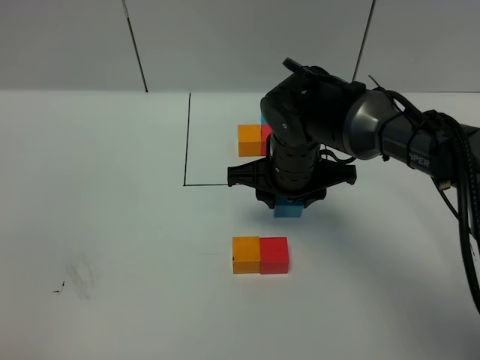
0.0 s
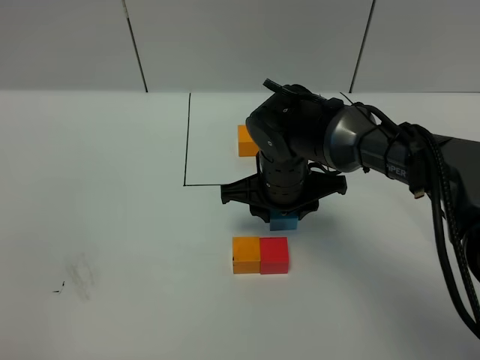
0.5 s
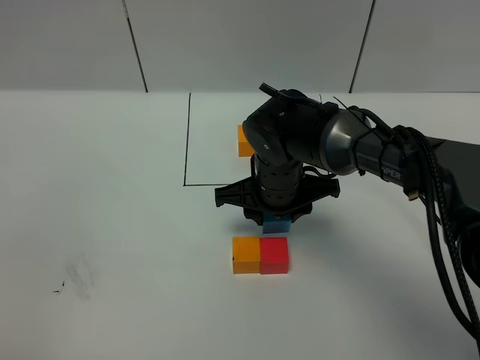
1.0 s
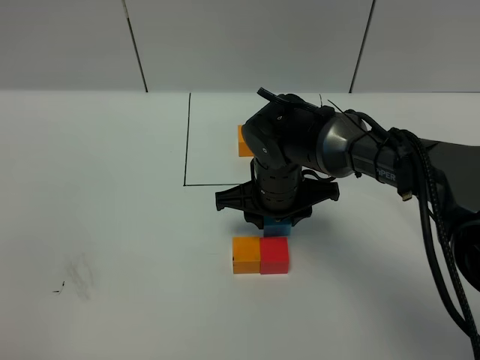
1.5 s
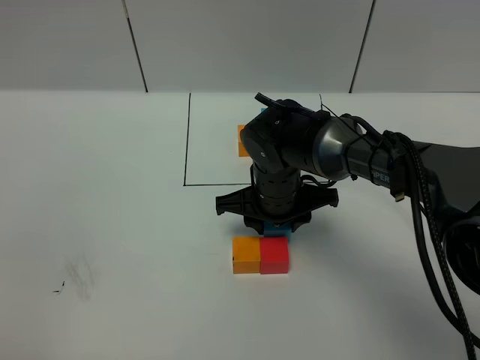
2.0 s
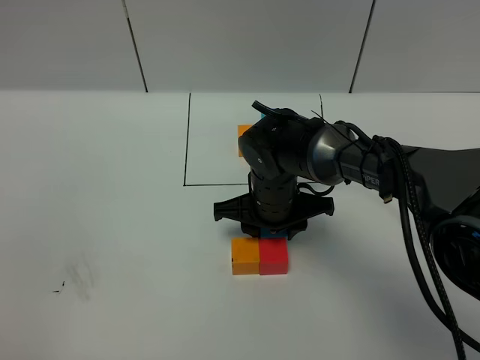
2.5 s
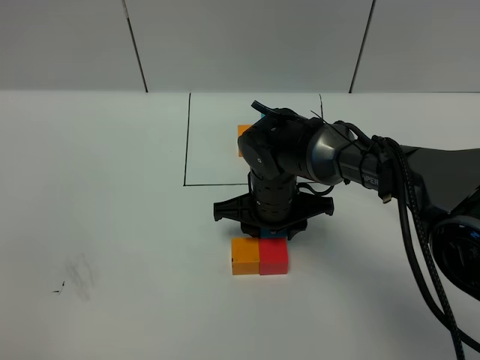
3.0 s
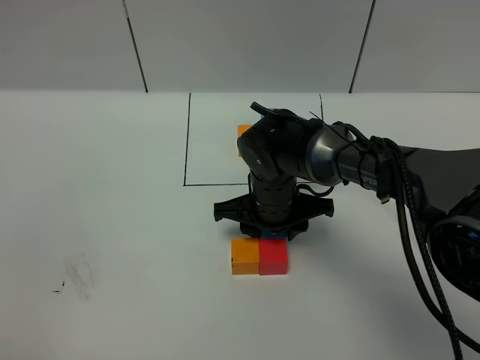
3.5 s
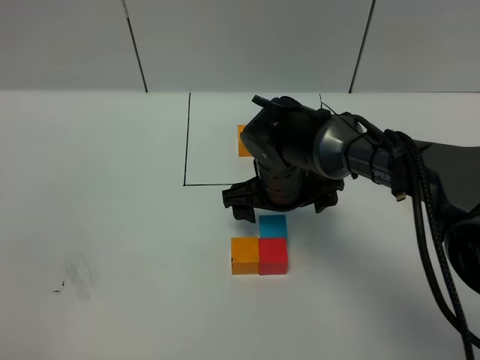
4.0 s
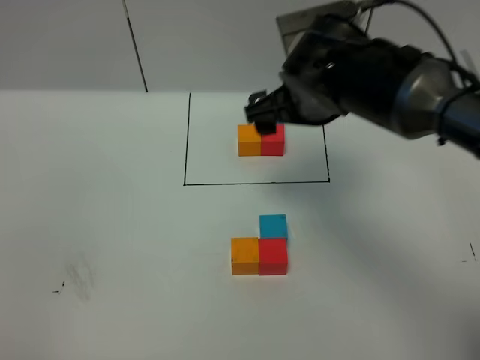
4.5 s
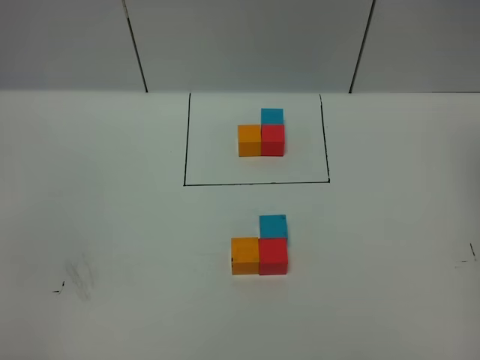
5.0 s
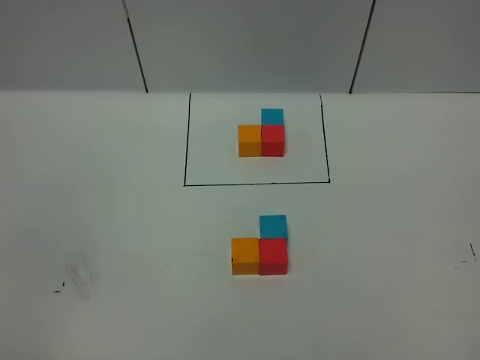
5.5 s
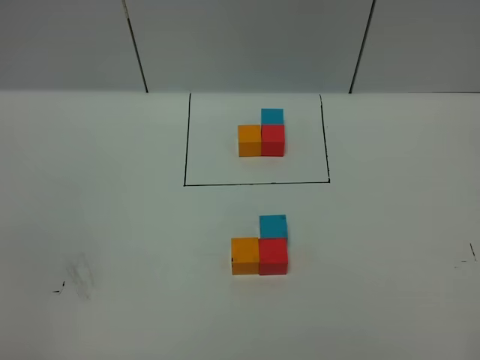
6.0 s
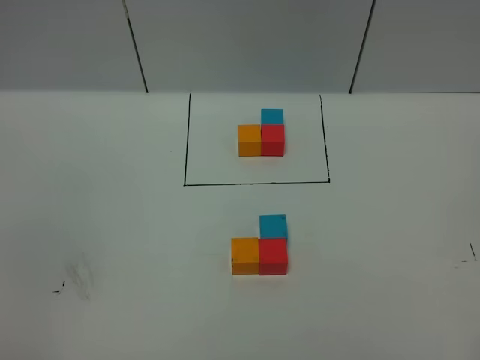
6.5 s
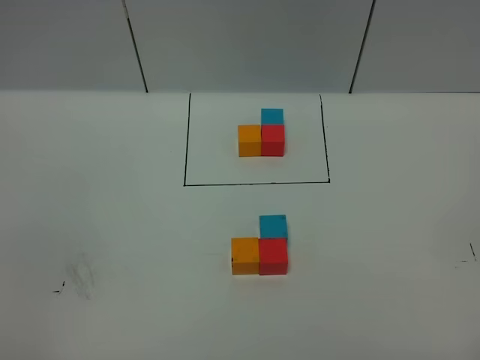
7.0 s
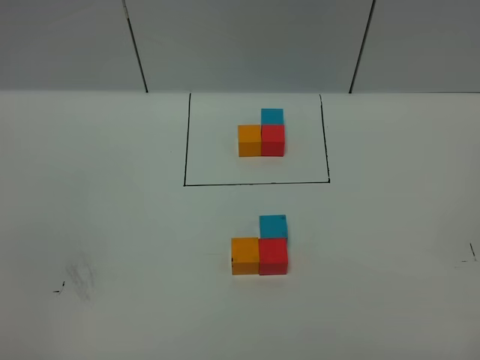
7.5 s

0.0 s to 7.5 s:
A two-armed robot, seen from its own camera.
Task of the whole recording: According to the building block template in front, assemble the scattered blocks together.
Step, 0.0 to 3.5 s: Put the blue cube on the behind of the red cube.
0.0 to 2.0 s: The grippers stay close to where they were, moving slightly.
2.0 to 4.0 s: The right gripper opens.
4.0 to 5.5 s: The right gripper heads upward, to the right and backward, covering about 50 cm.
